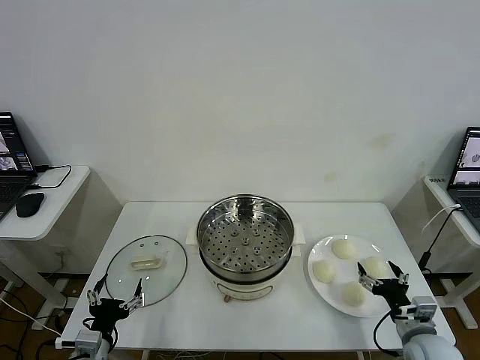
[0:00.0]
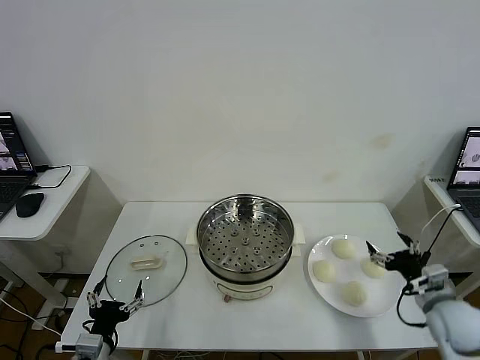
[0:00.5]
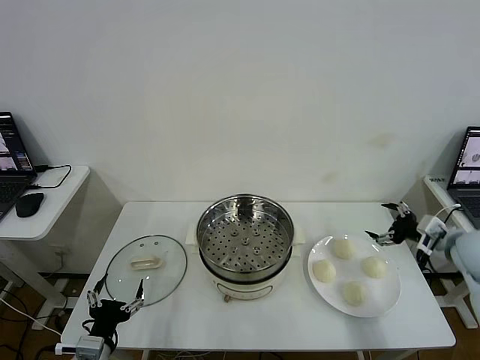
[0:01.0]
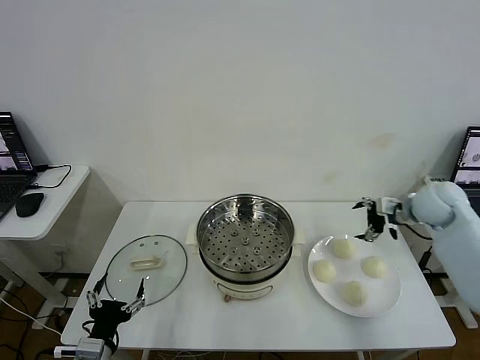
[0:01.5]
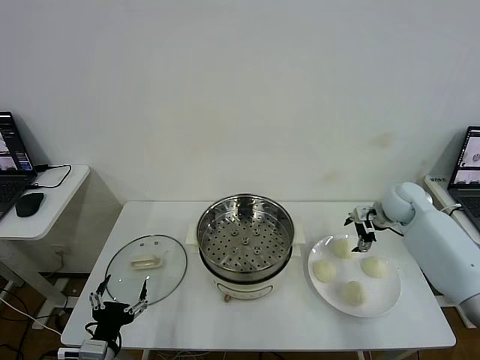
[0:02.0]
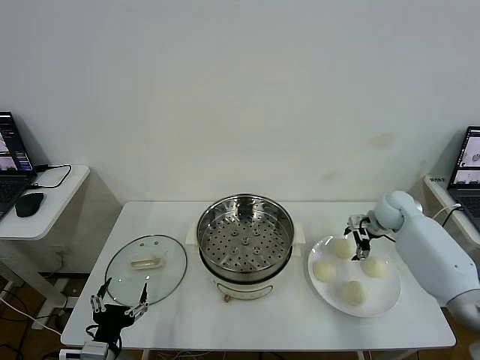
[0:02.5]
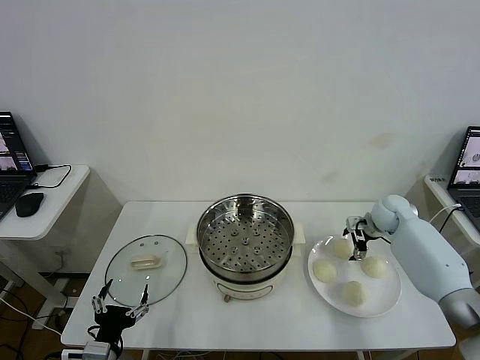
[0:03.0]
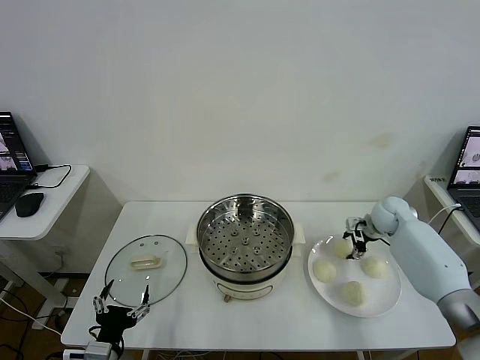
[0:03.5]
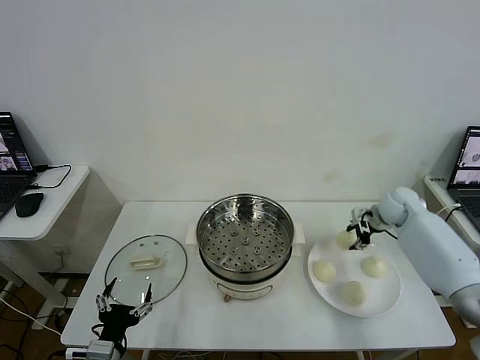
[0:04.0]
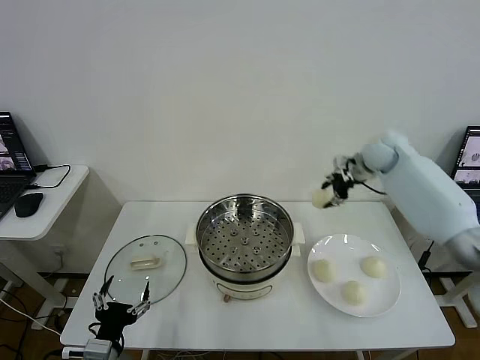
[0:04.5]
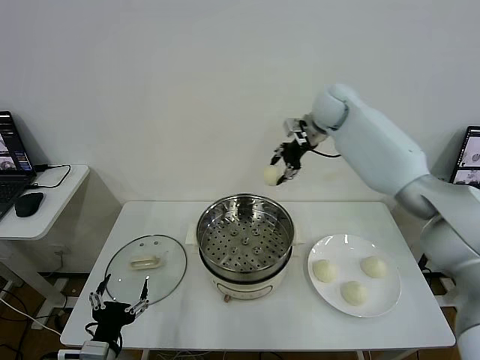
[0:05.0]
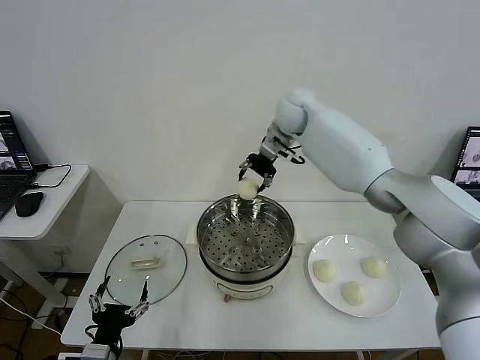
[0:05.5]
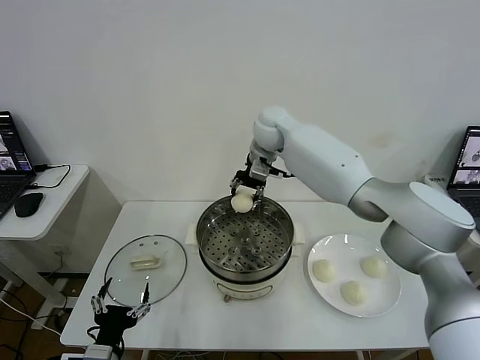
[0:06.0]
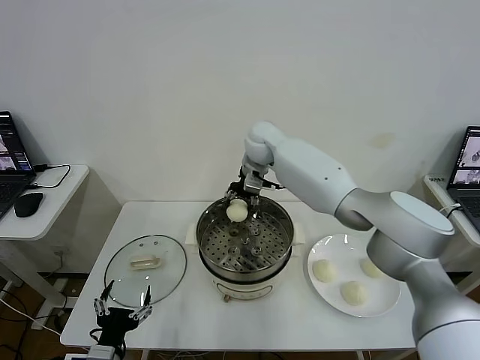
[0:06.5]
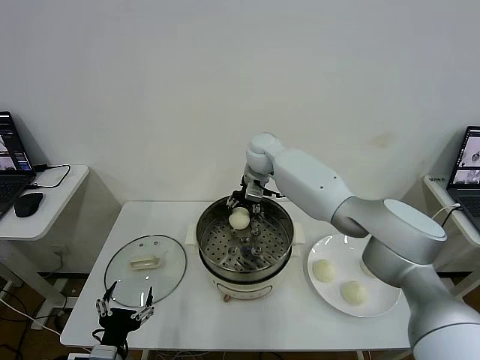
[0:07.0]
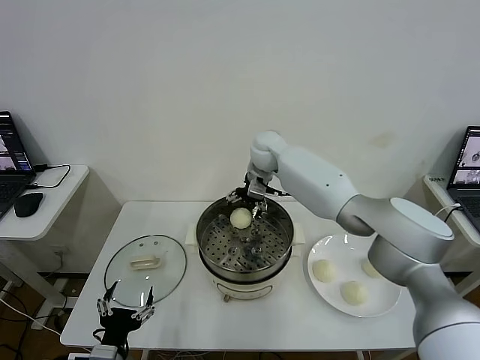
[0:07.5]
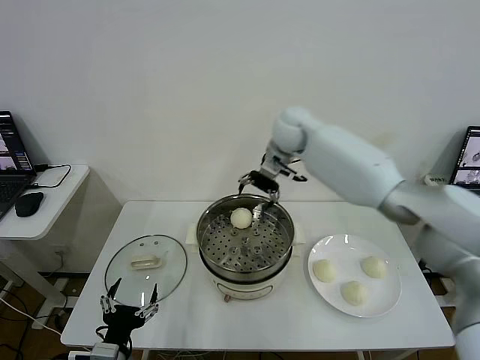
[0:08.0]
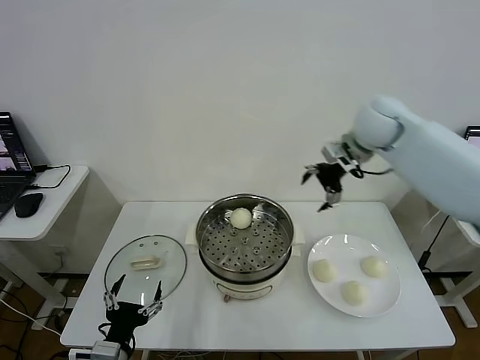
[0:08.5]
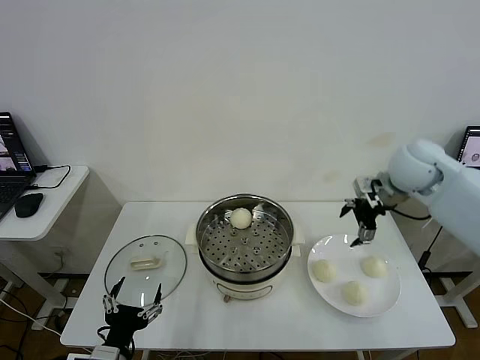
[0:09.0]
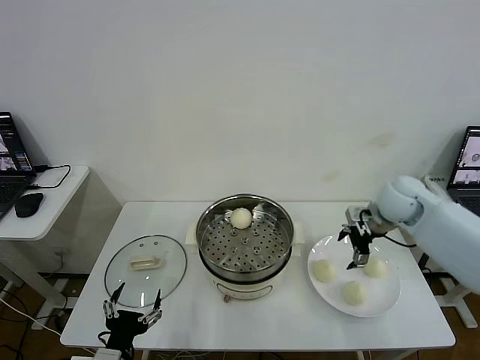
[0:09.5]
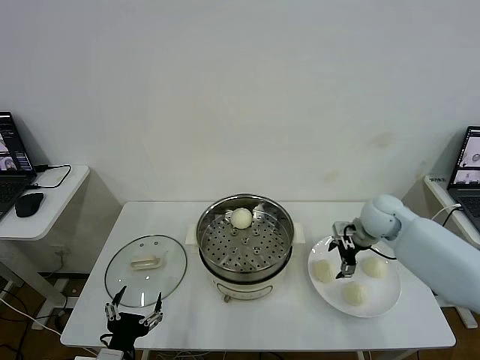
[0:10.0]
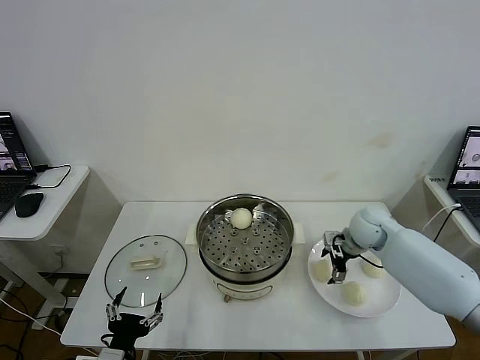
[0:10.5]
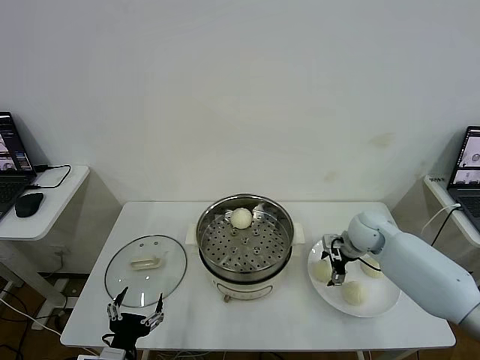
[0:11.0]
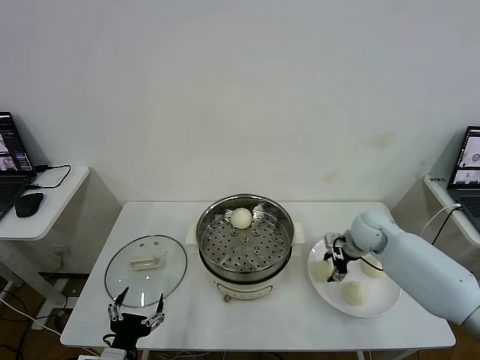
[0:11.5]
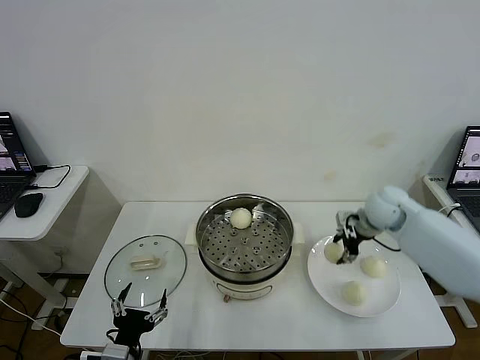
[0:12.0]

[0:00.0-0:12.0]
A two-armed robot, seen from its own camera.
Task of the whole recording: take steamed baozi put them in steamer then cover it.
Step, 0.0 to 3.0 s: Grasp the baozi in the plate with right gripper.
Step, 4.0 to 7.0 s: Place the baozi on the steamer with right gripper.
Step, 7.5 to 11.5 s: Grasp the baozi in the plate with right gripper.
2.0 to 4.0 s: The right gripper closes.
4.0 to 6.0 s: The right gripper goes some 35 cm to the left.
6.0 to 8.0 s: The right gripper is displaced to the right by approximately 10 cm, and opens up.
8.0 to 10.0 s: The right gripper heads downward, to the right and backward, covering approximately 30 cm.
10.0 to 12.0 s: The right gripper moves upward, roughly 5 cm, and closes.

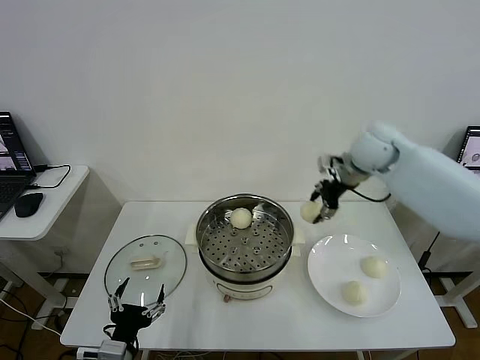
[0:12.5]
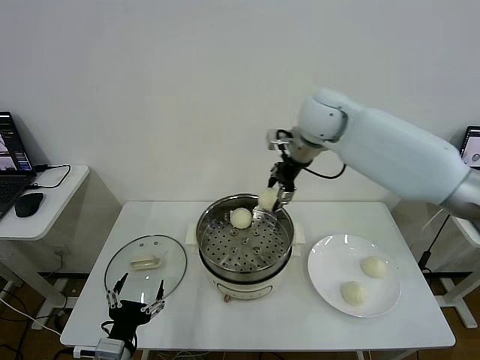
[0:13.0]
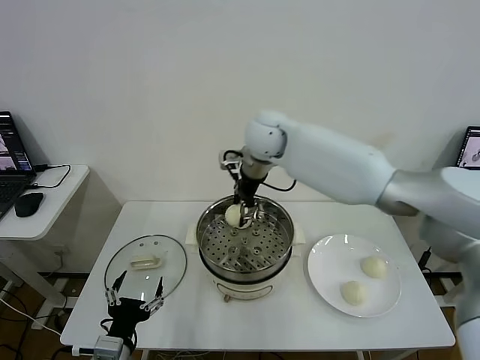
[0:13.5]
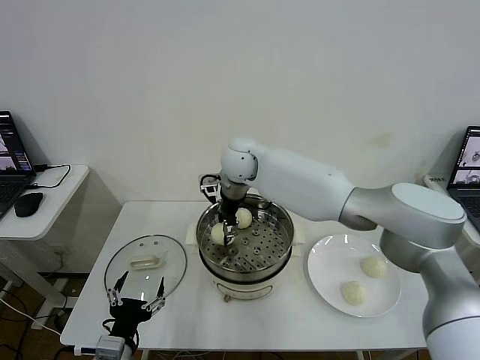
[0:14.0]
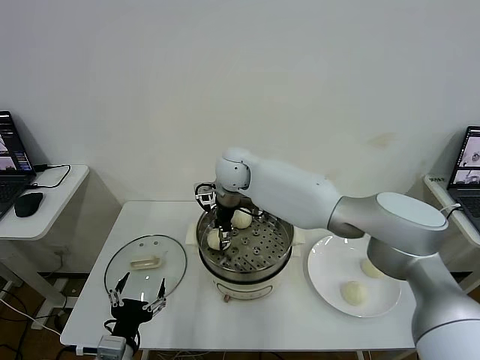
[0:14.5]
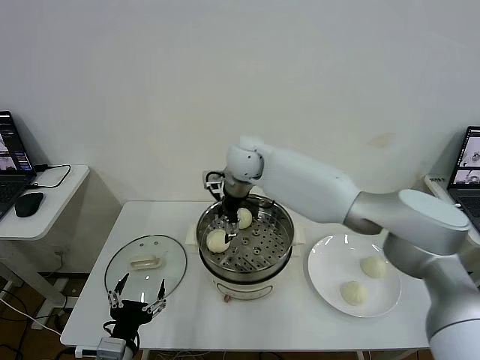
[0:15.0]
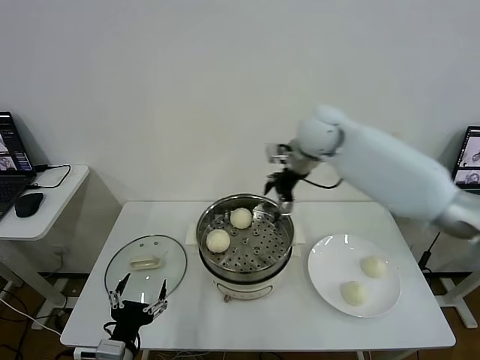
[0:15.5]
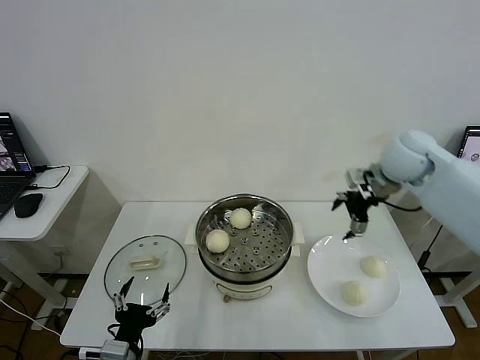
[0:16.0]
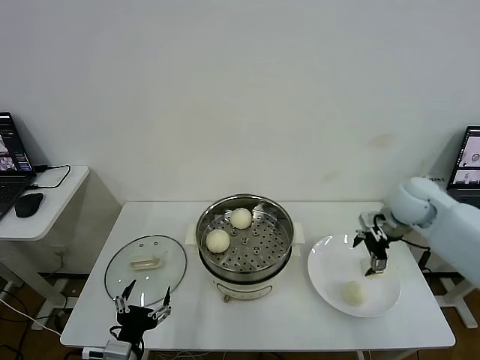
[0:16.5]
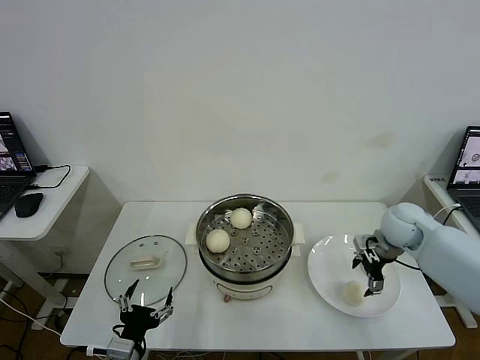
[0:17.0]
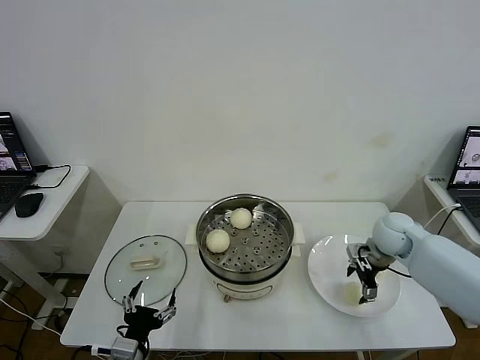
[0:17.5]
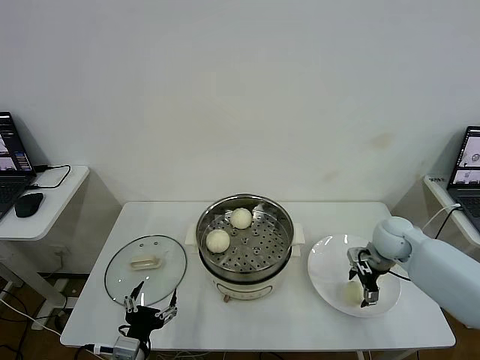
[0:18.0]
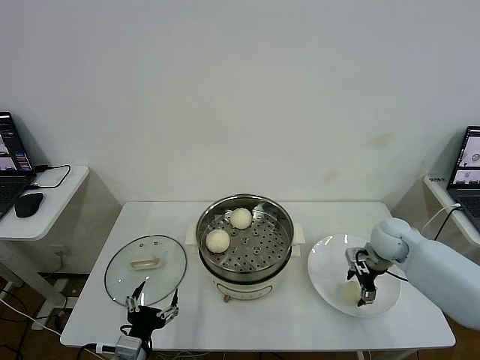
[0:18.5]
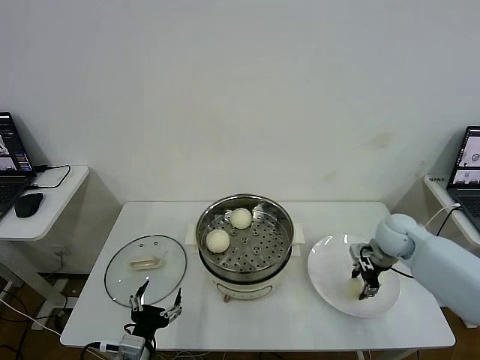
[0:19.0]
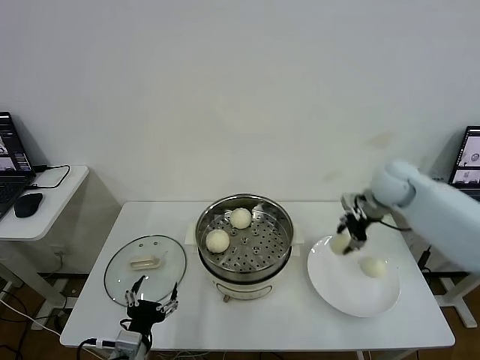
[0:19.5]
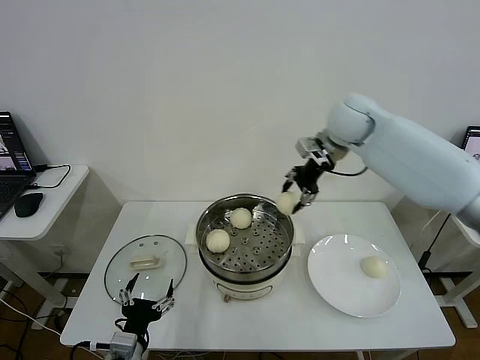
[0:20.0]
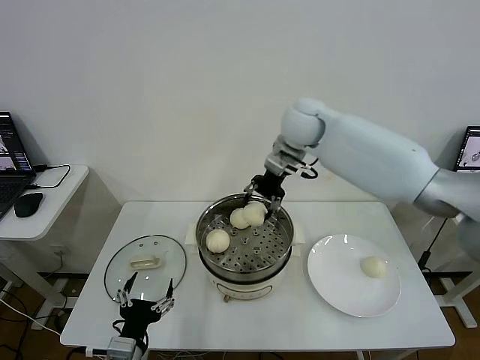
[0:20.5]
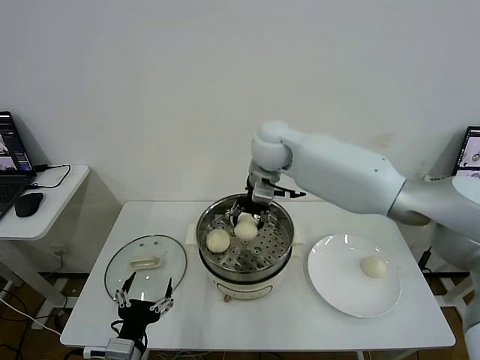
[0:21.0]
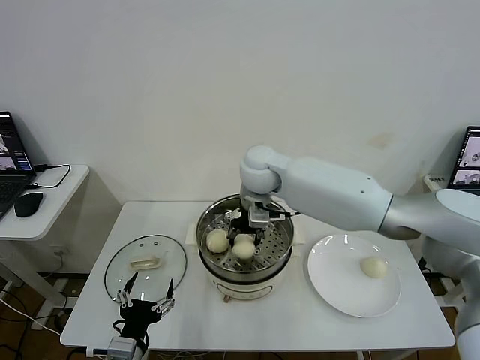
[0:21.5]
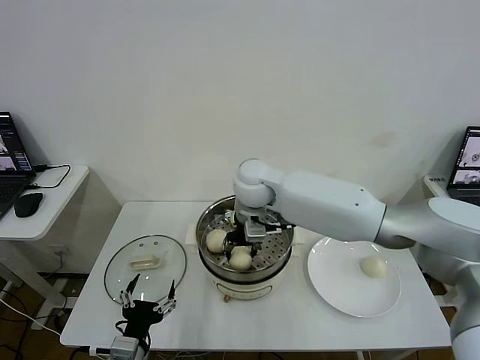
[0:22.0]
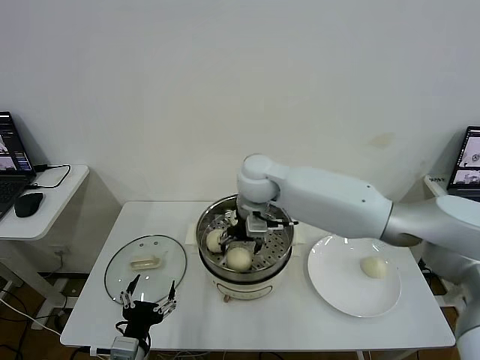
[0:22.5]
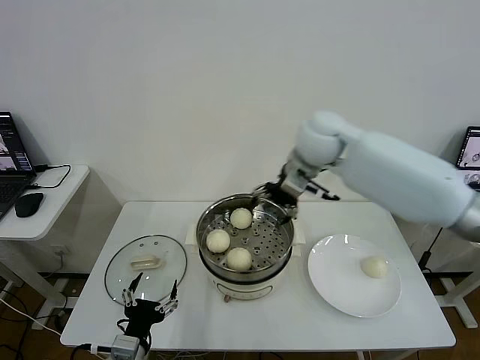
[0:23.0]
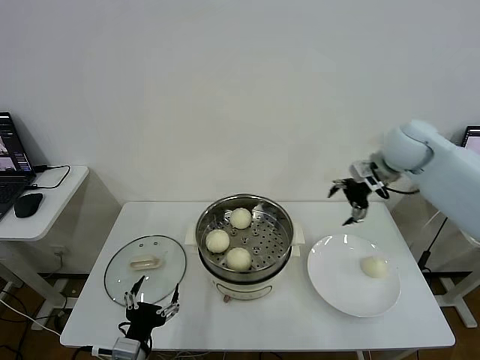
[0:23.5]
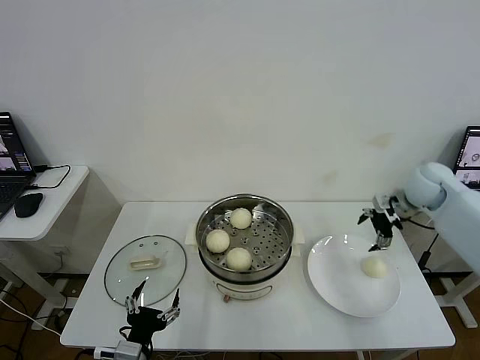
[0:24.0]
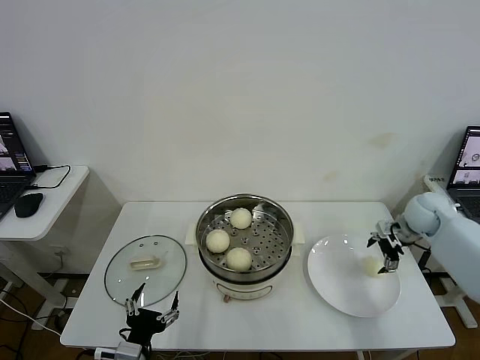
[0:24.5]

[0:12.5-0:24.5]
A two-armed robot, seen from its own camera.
Task of the whole recording: take steamed baozi put them in steamer then cover it.
Step, 12.5 to 14.5 s: Place the baozi on the steamer with right gripper.
Step, 15.0 to 18.5 s: Grasp the baozi in the plate with right gripper.
Step, 19.0 to 22.5 s: Place the baozi on the steamer with right gripper.
12.5 to 14.5 s: The right gripper goes about 25 cm to the left.
14.5 to 16.5 s: The right gripper goes some 40 cm to the right, and opens.
16.5 to 18.5 s: The right gripper goes approximately 10 cm downward, and closes.
18.5 to 20.5 s: The right gripper goes some 35 cm to the left, upward and forward, and closes up.
20.5 to 22.5 s: The right gripper moves to the left, downward and backward, about 10 cm, and opens up.
22.5 to 24.5 s: The right gripper travels to the right by approximately 40 cm.

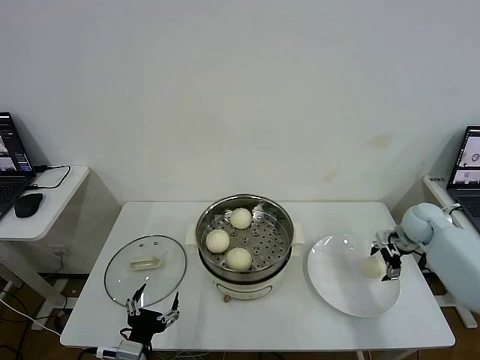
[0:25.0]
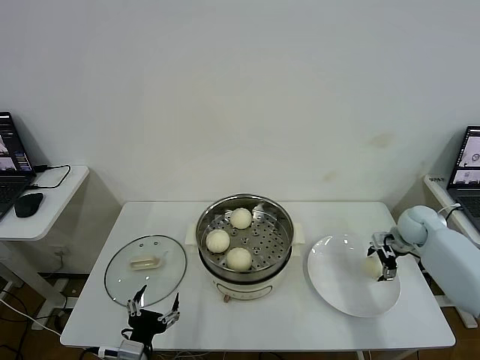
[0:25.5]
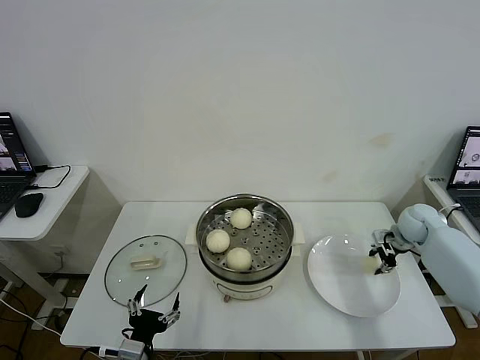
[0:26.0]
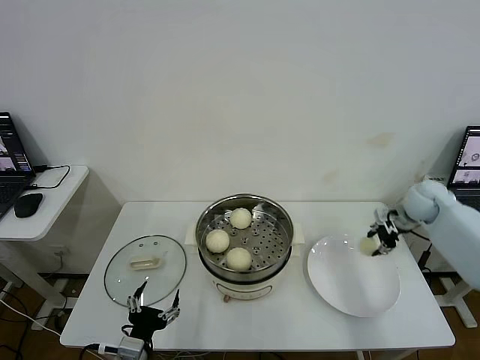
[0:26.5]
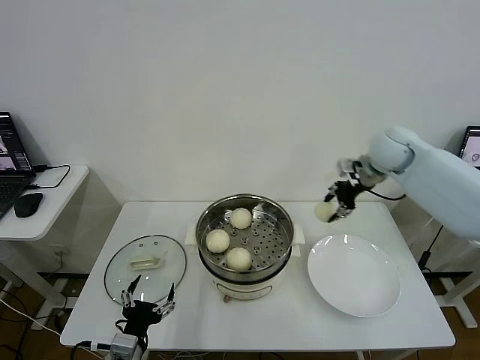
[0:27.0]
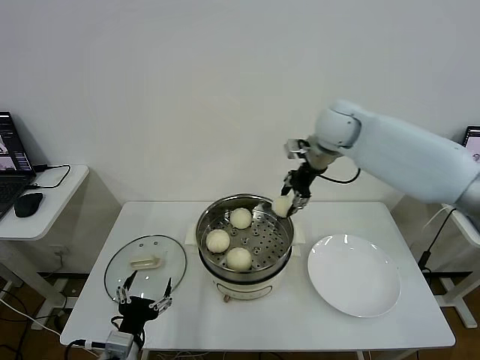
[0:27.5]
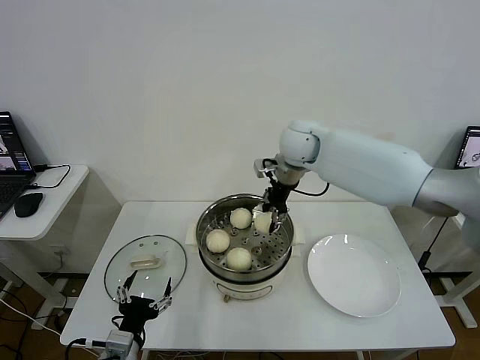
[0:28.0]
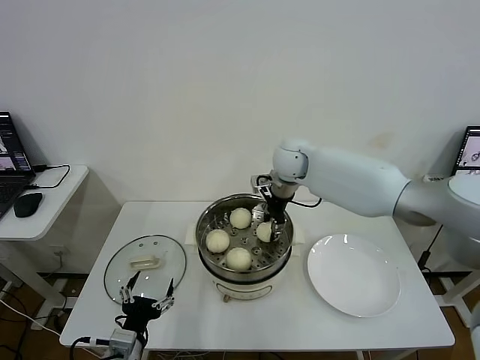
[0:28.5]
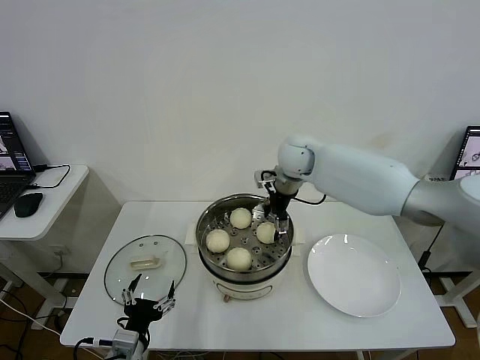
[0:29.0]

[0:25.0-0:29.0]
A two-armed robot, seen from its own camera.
Task of the whole recording: take steamed baozi put them in steamer then cover it.
Step, 26.5 to 29.0 s: Place the baozi on the steamer with right gripper.
25.0 to 27.0 s: The right gripper shifts about 25 cm upward and to the left, and closes its fingers.
27.0 to 29.0 s: The right gripper heads to the left, covering approximately 20 cm, and opens up.
